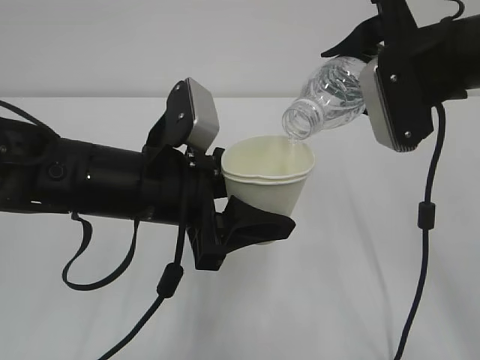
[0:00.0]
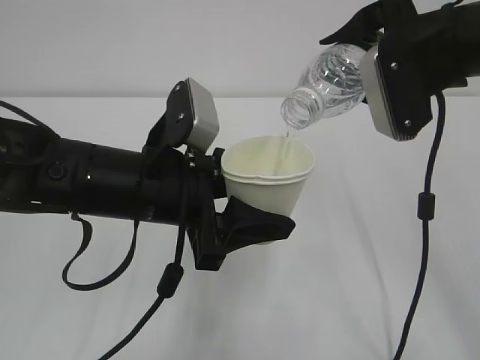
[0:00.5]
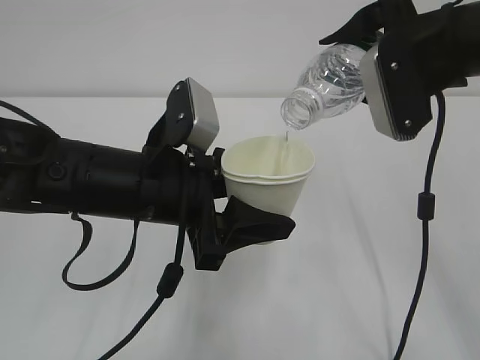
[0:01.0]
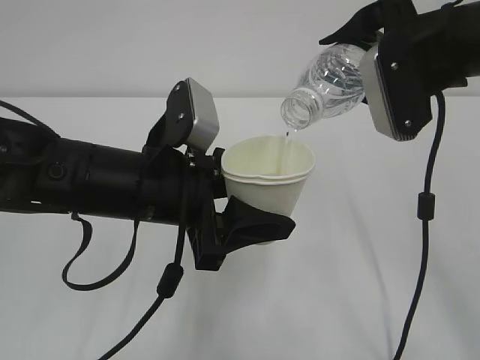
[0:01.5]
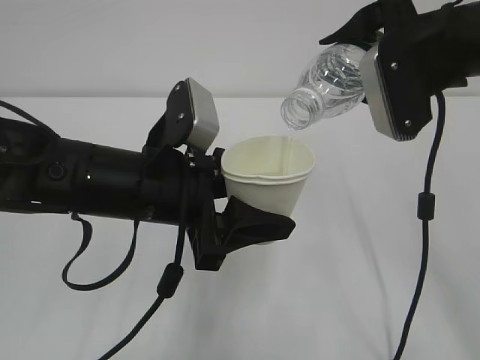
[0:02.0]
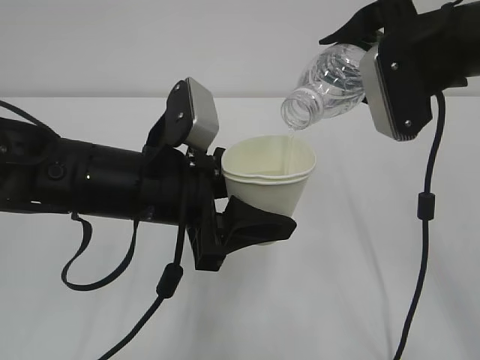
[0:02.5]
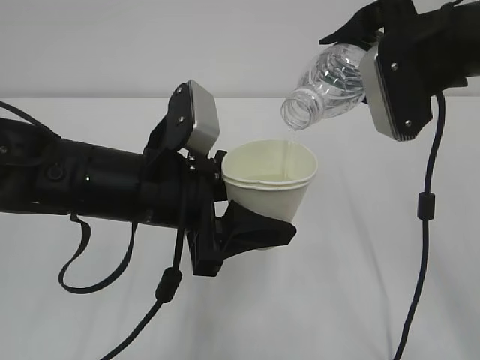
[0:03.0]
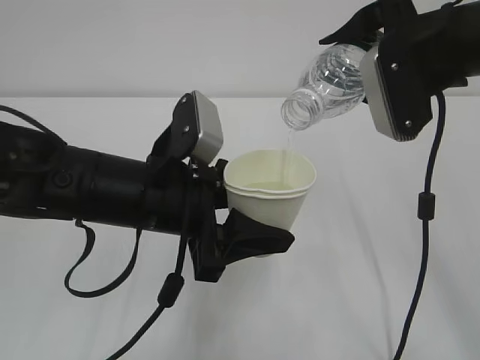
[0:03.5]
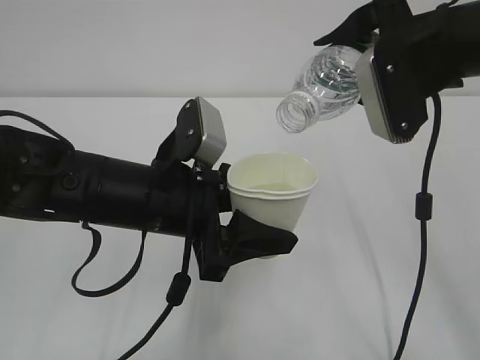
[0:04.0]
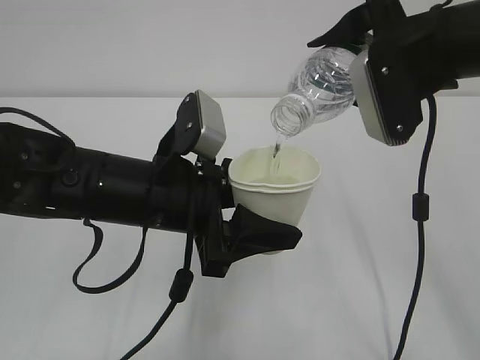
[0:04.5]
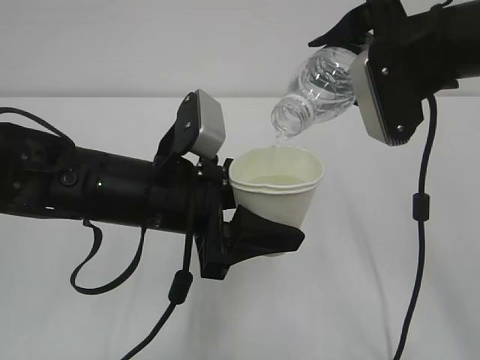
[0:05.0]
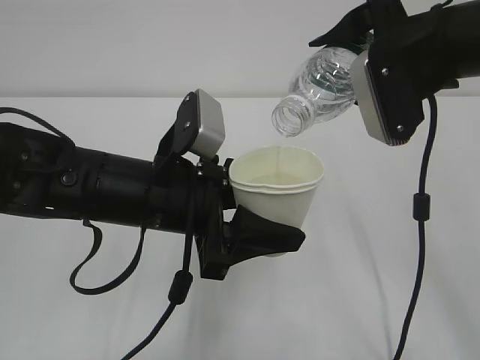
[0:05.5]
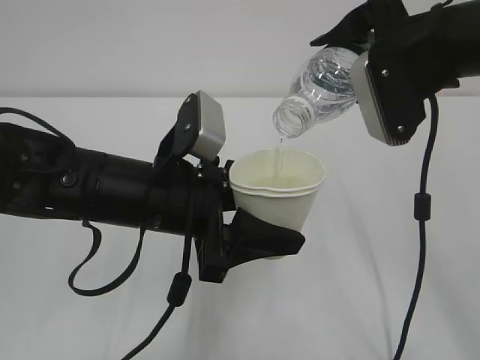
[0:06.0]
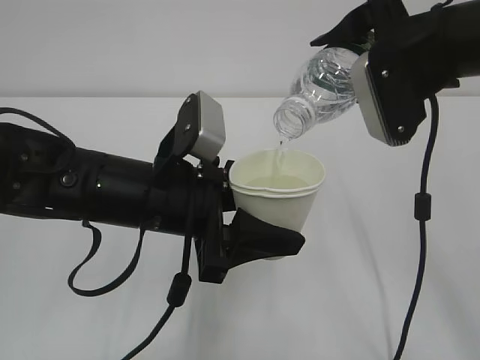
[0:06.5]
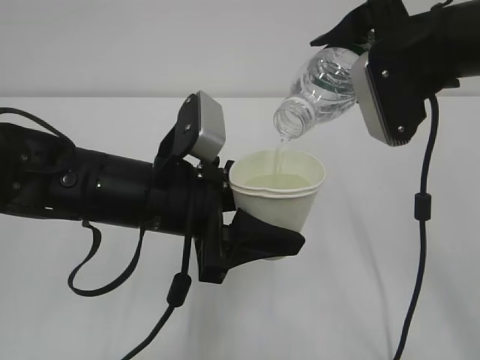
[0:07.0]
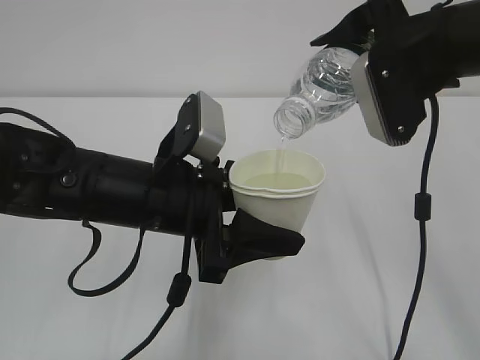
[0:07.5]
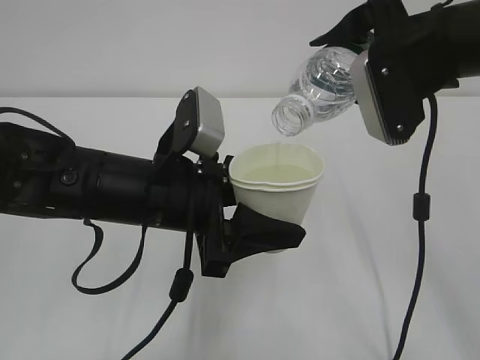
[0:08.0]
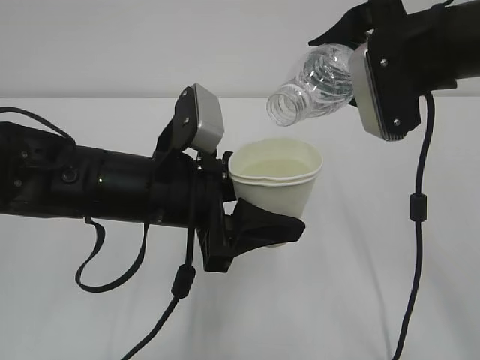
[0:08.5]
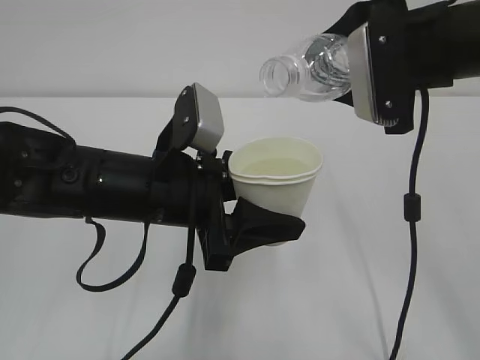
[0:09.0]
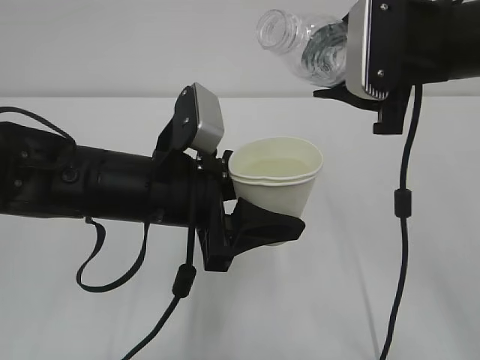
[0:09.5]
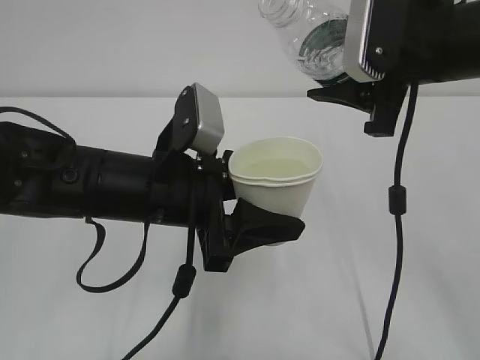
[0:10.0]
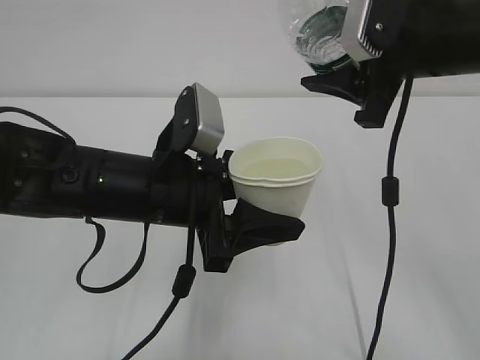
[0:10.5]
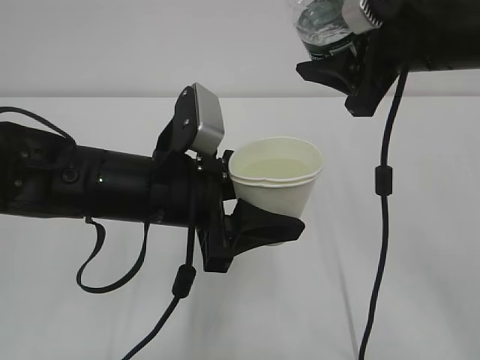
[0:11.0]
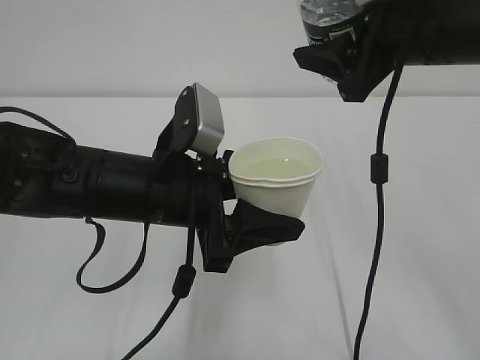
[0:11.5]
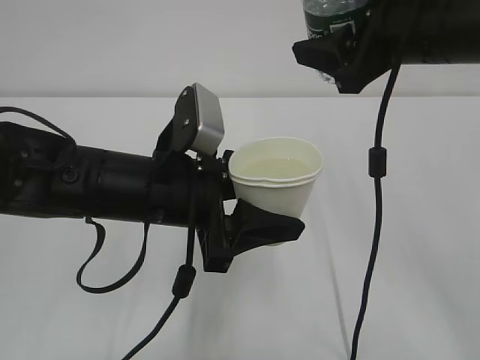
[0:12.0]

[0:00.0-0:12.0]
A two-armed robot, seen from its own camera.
0:00.0 to 0:02.0: Neither gripper changes place.
0:02.0 to 0:04.0: The grippers stay close to where they were, moving slightly.
0:04.0 to 0:08.0: Neither gripper changes place.

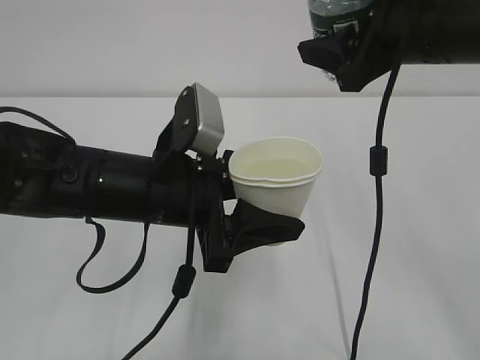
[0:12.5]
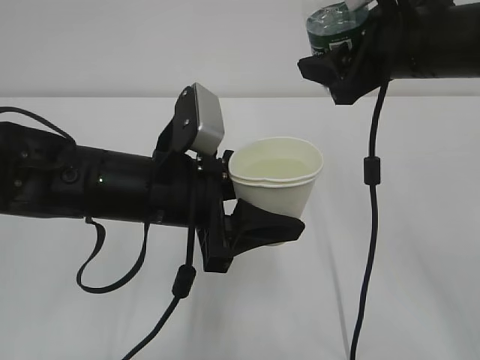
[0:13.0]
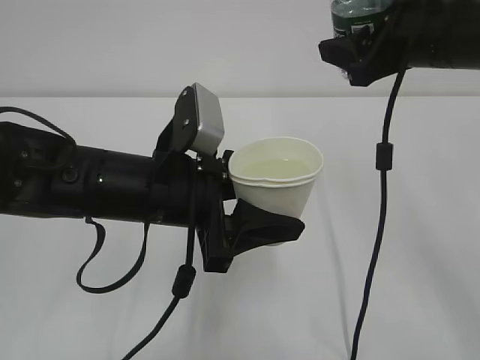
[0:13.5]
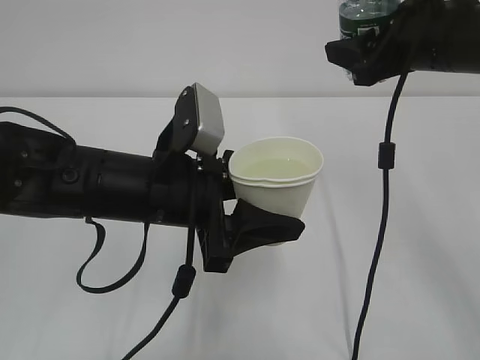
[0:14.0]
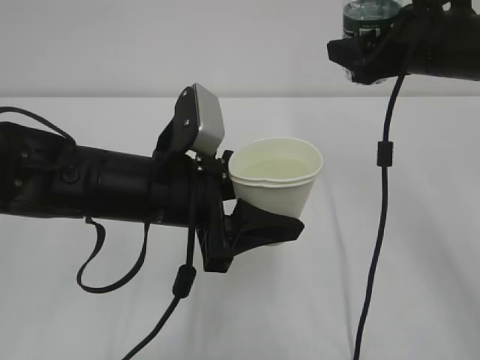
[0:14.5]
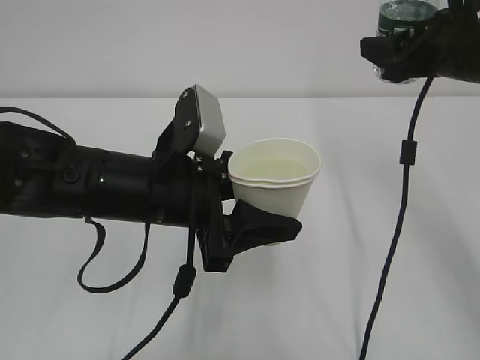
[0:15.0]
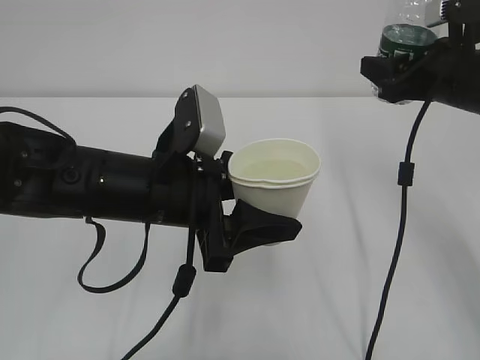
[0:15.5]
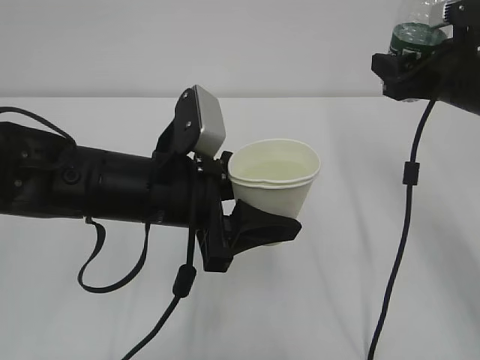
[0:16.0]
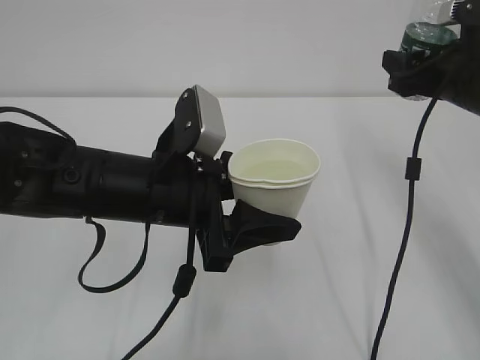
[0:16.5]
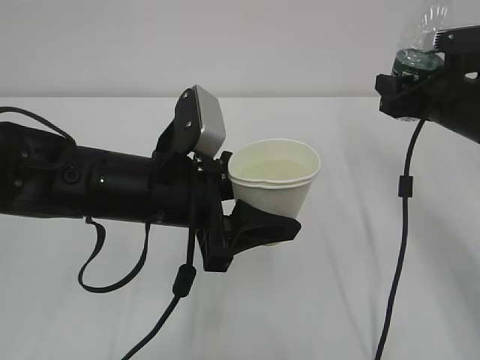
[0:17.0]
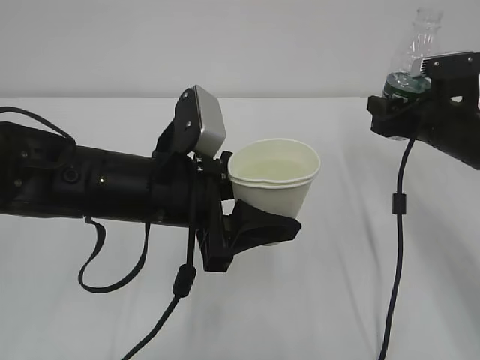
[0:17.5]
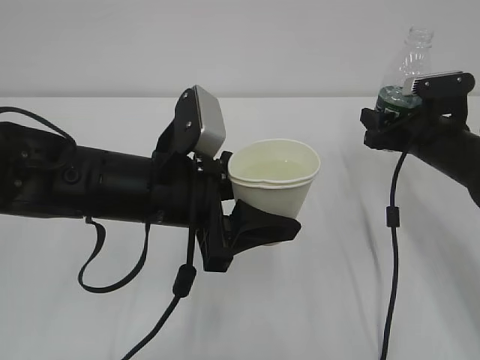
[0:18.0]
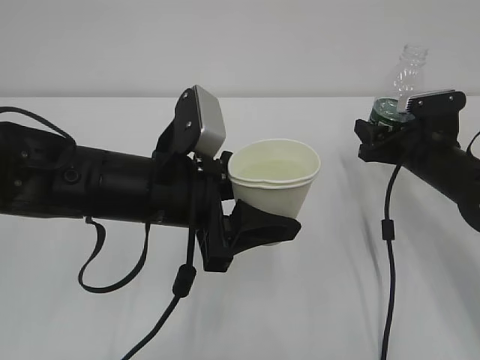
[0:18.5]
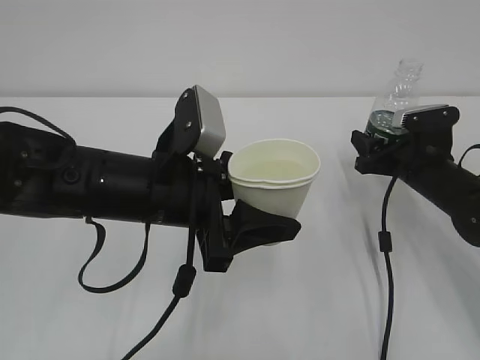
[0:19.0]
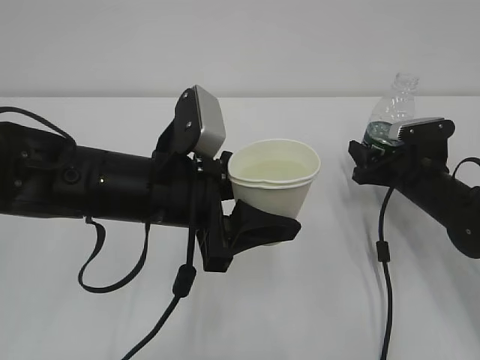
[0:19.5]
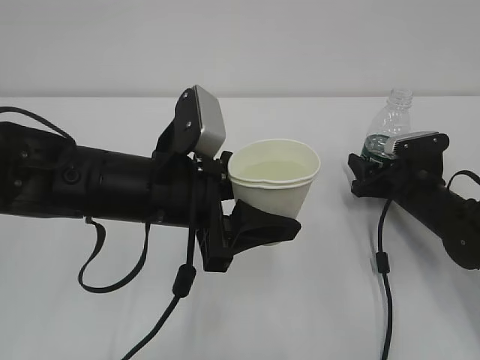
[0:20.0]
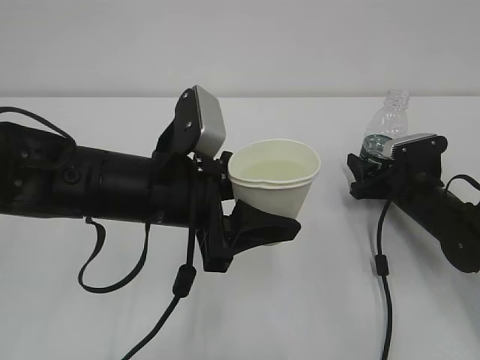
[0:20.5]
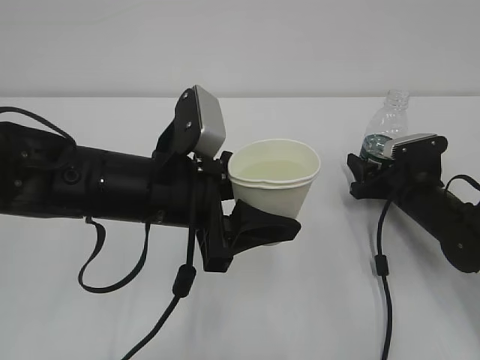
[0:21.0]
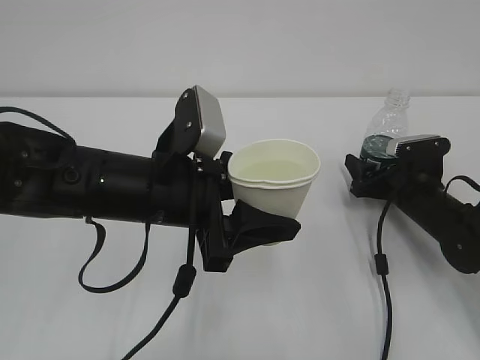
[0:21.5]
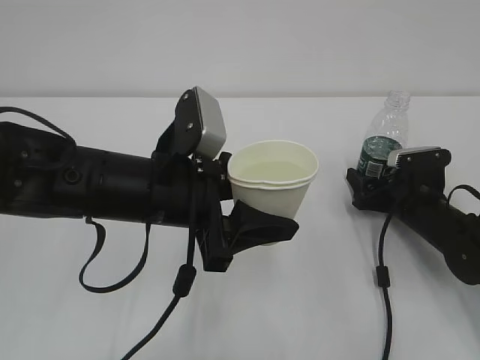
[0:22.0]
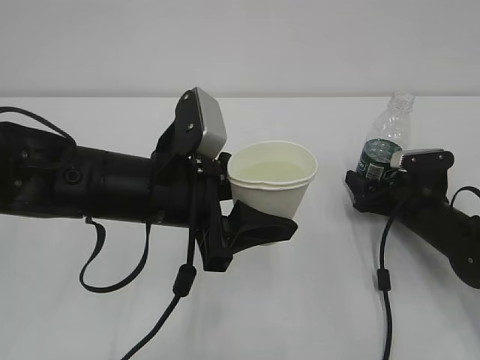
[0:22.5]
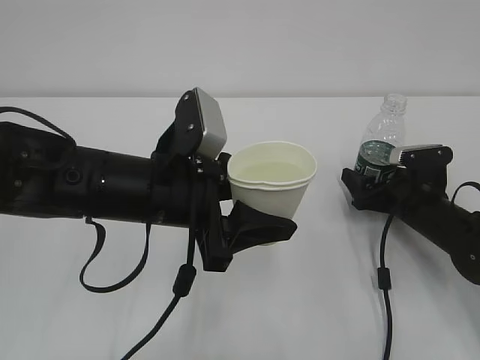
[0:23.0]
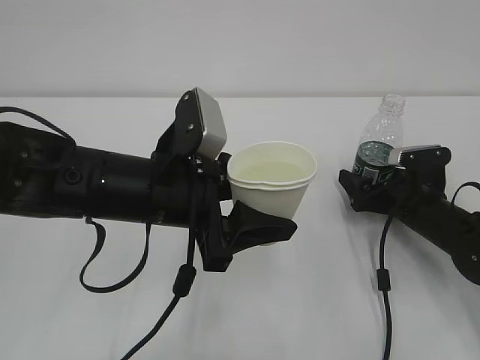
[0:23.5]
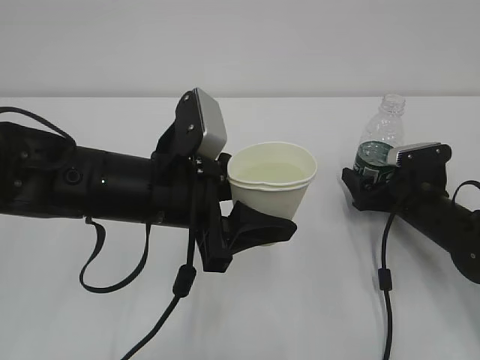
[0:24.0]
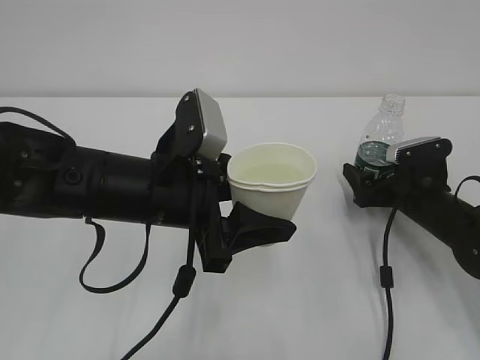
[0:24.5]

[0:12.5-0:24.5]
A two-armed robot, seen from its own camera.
0:12.5 to 0:14.5: The right gripper ends up some 5 cm from where it was.
0:14.5 to 0:16.5: The right gripper is displaced downward and to the right by about 5 cm.
0:16.5 to 0:18.5: The right gripper heads downward, covering approximately 10 cm.
0:18.5 to 0:20.5: The right gripper goes about 5 cm downward.
0:20.5 to 0:22.5: The right gripper opens up.
0:22.5 to 0:24.5: The right gripper opens up.

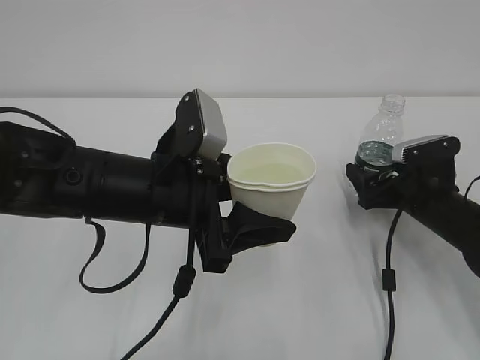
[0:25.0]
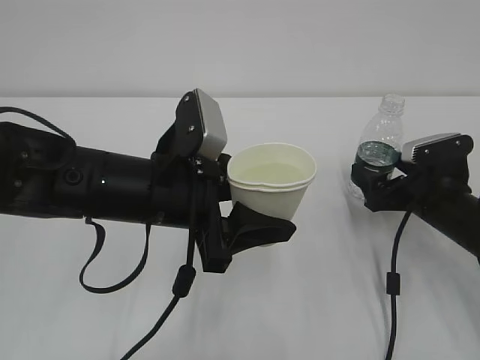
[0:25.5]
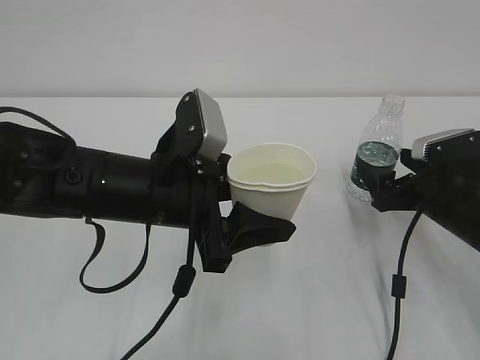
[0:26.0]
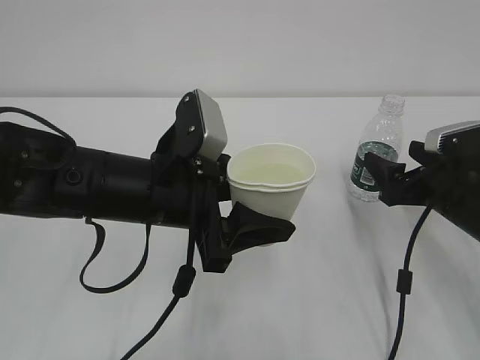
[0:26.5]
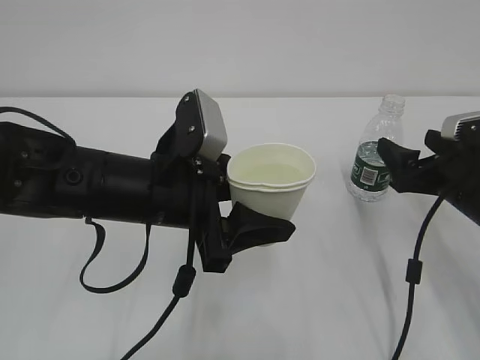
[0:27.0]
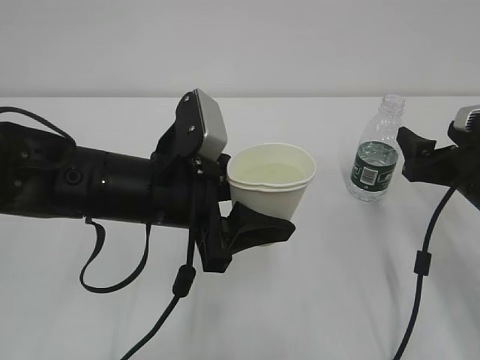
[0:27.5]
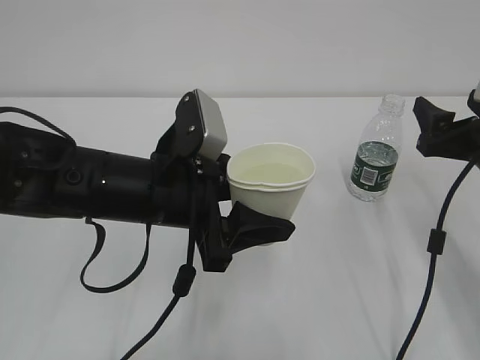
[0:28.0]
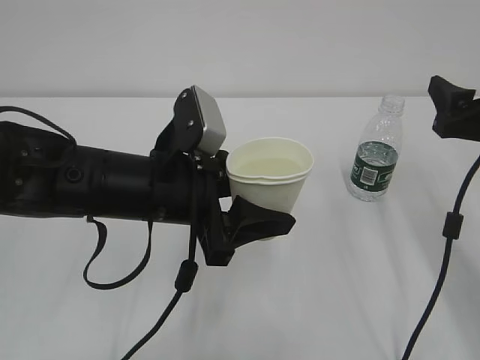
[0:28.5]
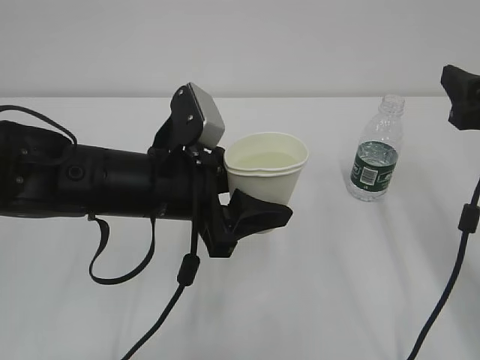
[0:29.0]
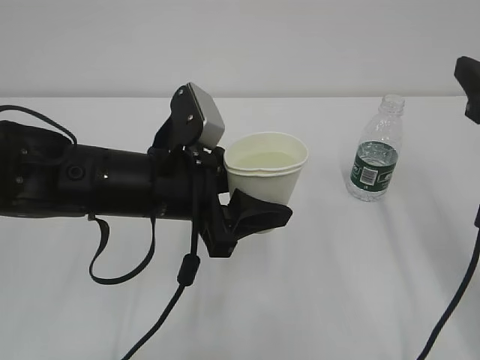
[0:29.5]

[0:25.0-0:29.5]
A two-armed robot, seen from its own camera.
0:25.0 to 0:27.0: The right gripper travels upward and backward by approximately 10 cm.
0:27.0 to 0:29.5: The right gripper heads upward and backward, covering about 15 cm.
